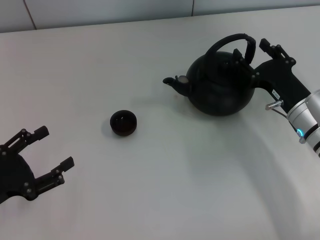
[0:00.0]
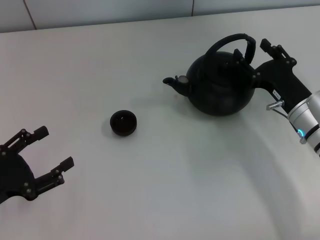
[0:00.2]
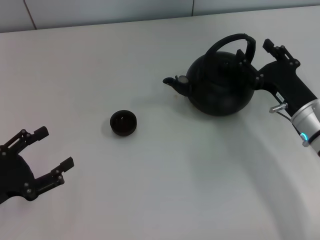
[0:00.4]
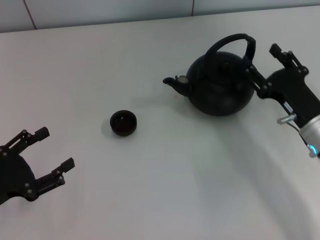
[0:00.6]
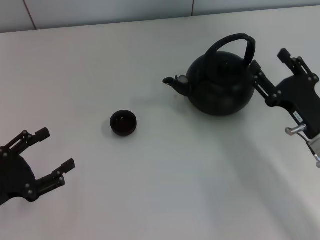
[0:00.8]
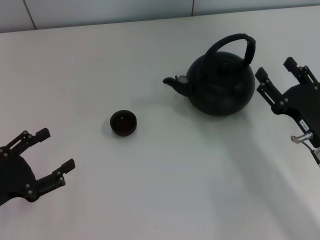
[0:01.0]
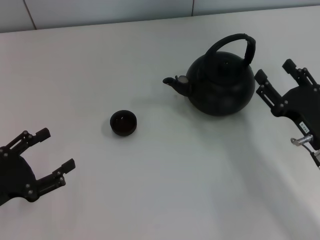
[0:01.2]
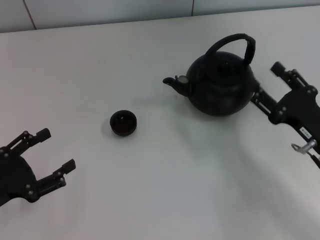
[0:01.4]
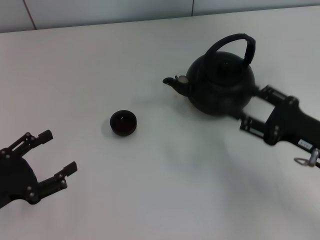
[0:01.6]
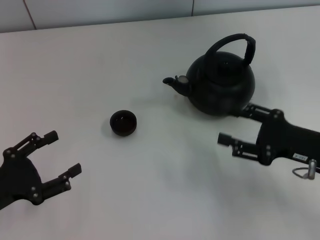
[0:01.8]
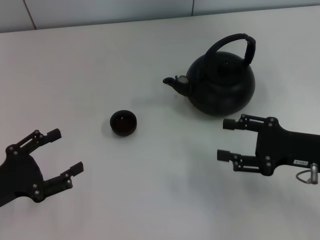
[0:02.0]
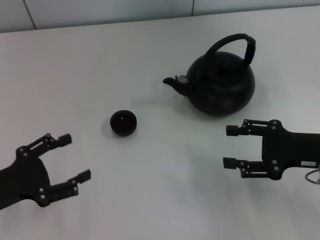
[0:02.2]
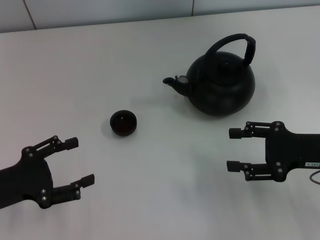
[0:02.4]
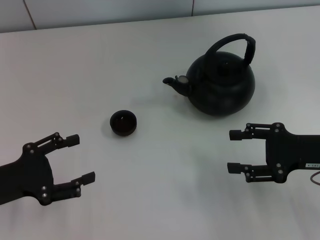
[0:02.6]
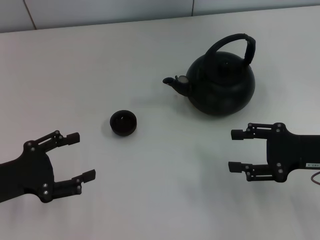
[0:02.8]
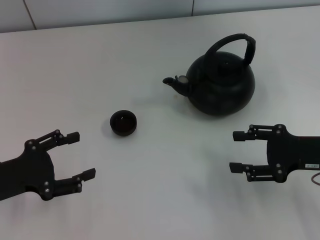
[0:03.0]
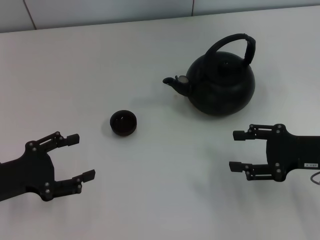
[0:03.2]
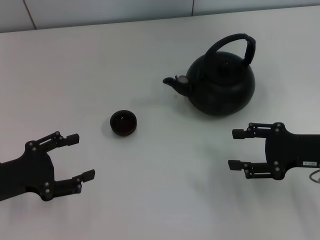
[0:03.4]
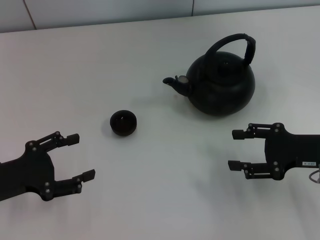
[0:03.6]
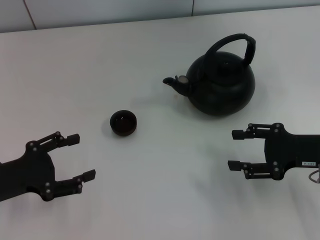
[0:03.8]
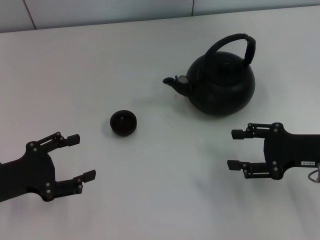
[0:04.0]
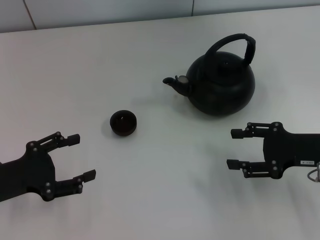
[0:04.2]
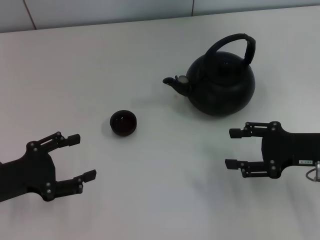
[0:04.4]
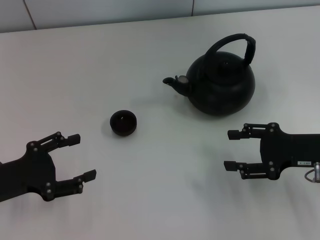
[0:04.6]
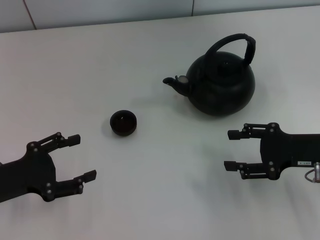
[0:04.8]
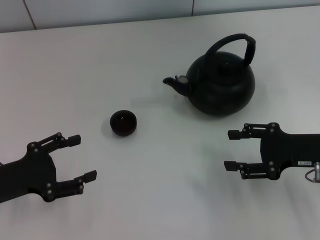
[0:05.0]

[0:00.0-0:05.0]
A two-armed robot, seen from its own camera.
Task of the whole recording: Grasp the handle of the teapot with one hand and pour tea into the teacup.
0:00.0 to 0:01.6: The right gripper goes approximately 5 cm backward.
0:03.4 to 0:05.0: Both grippers stay put.
